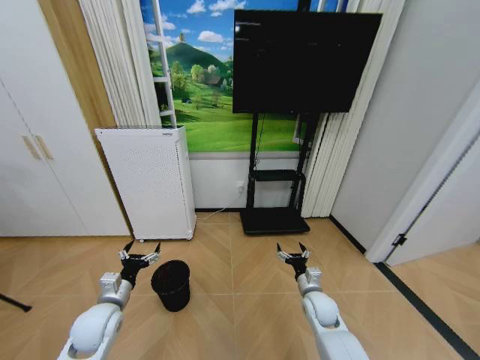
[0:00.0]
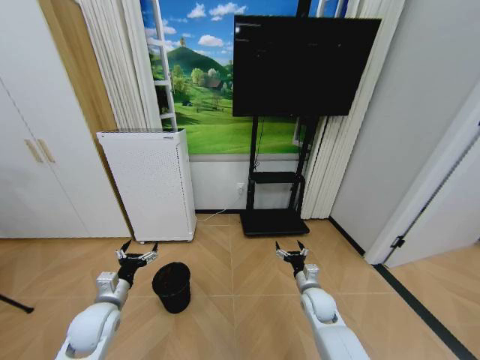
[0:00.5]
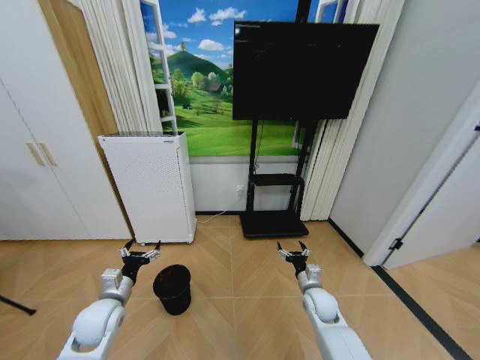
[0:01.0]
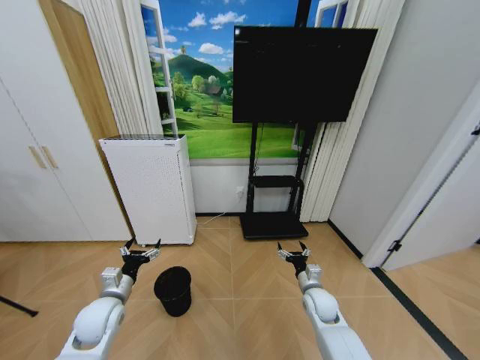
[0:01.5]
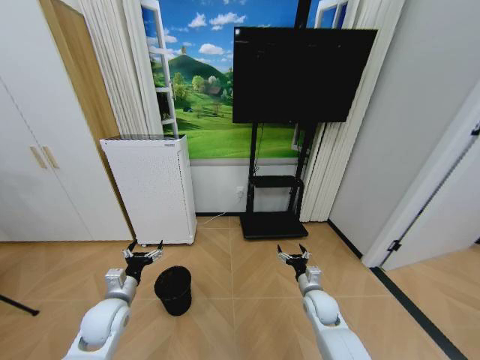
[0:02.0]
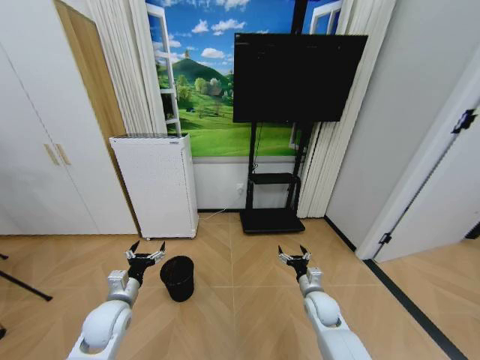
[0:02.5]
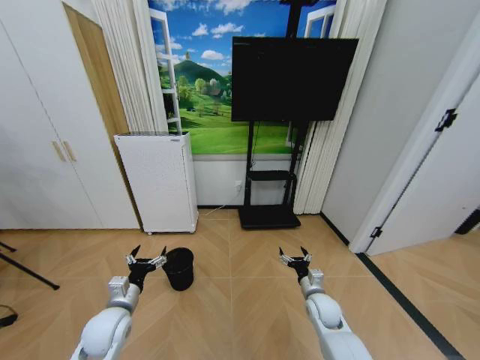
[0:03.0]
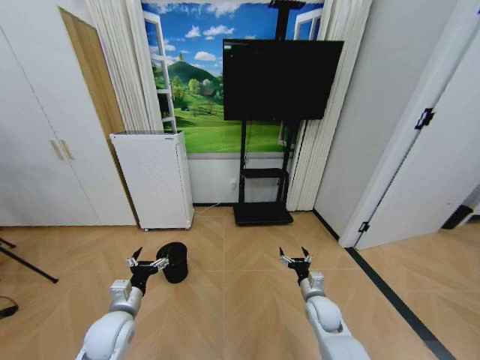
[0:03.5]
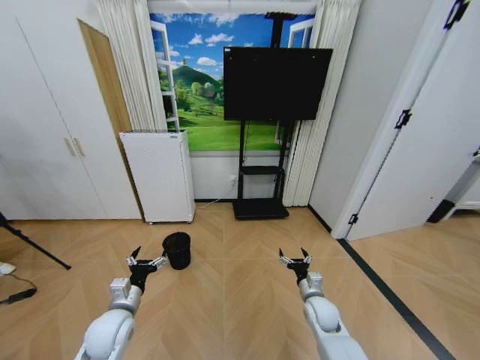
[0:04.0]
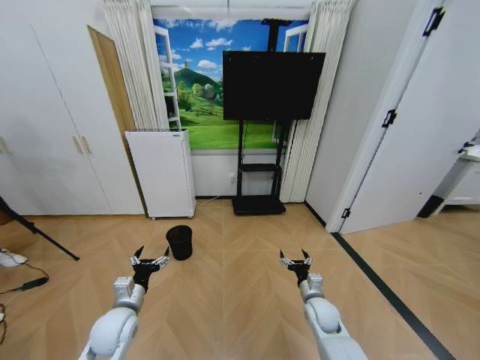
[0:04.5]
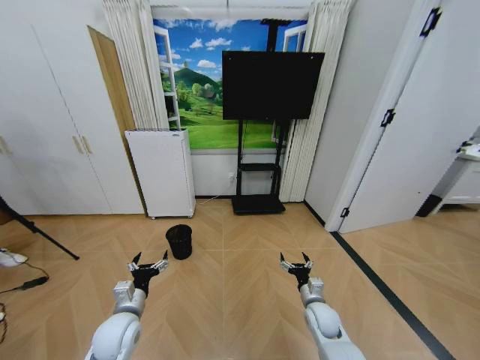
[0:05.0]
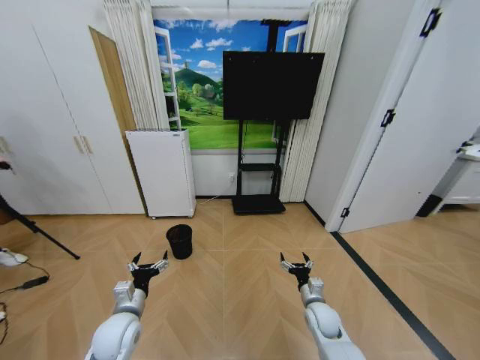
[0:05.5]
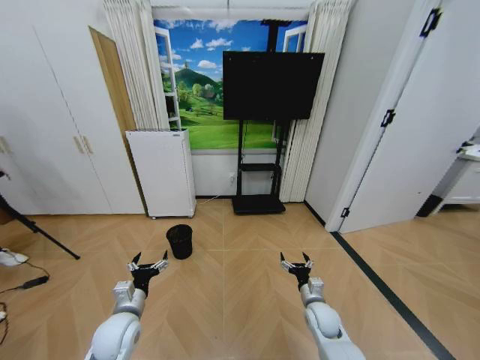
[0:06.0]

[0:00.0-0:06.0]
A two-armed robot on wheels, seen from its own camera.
Task of the whole recording: Pick up the trash bin and place the garbage on the floor into it.
0:00.0 to 0:02.0: The grippers make only small movements.
0:04.0 to 0:06.0: The grippers move only a little.
